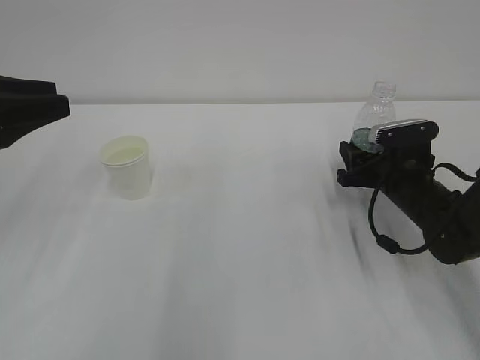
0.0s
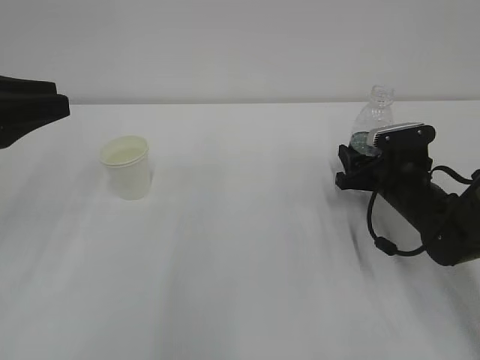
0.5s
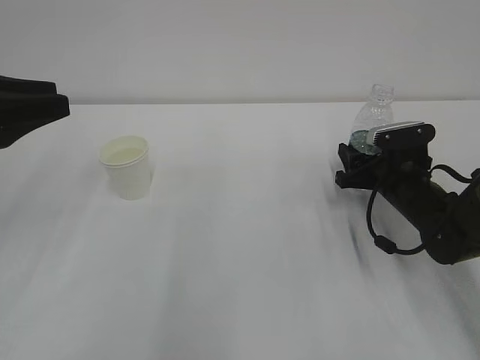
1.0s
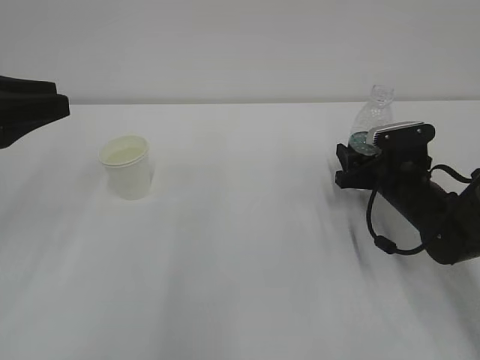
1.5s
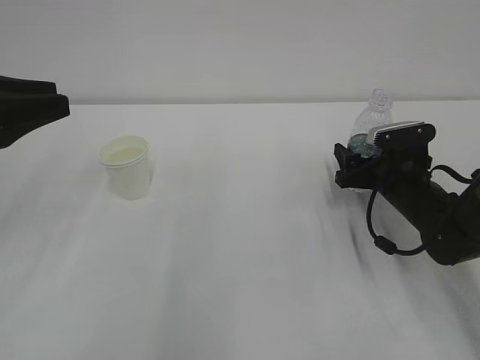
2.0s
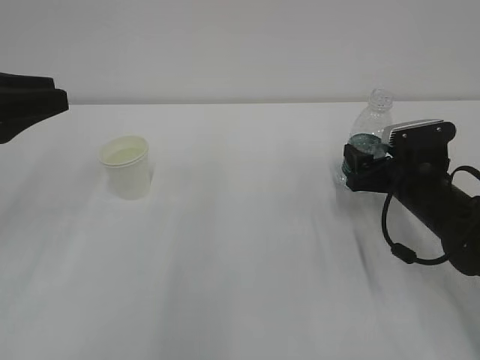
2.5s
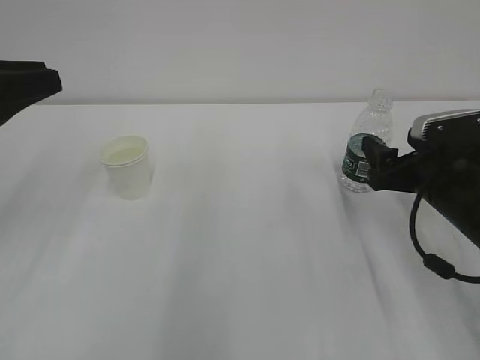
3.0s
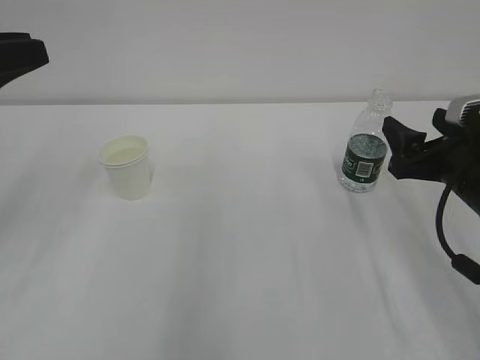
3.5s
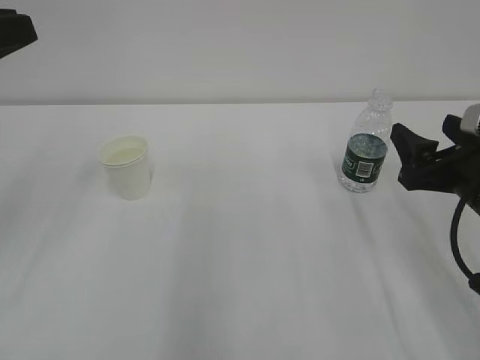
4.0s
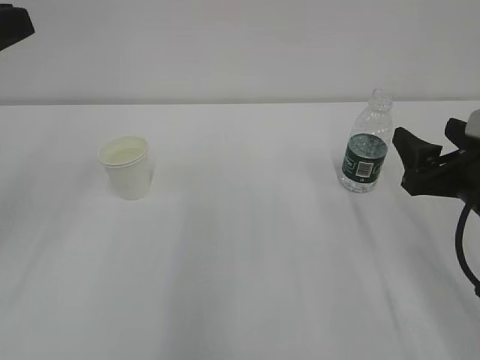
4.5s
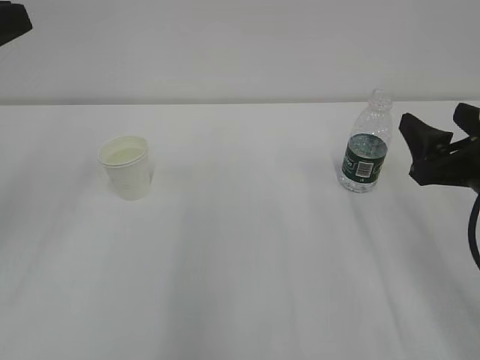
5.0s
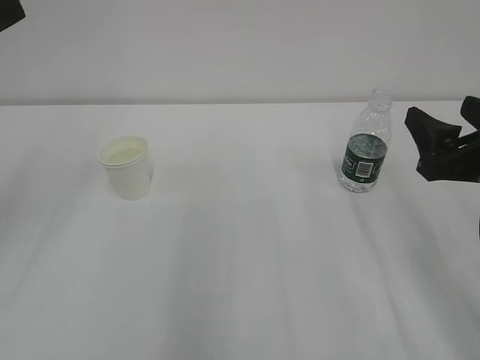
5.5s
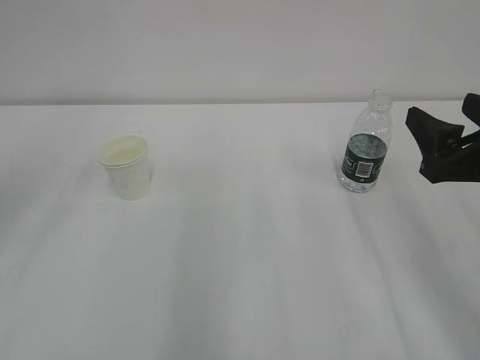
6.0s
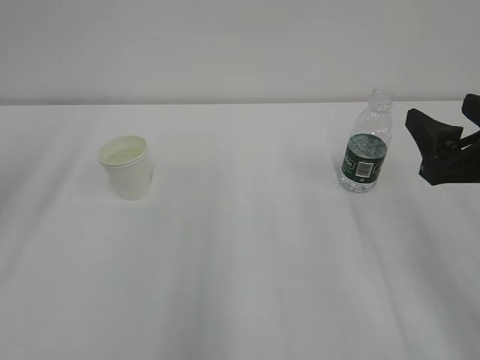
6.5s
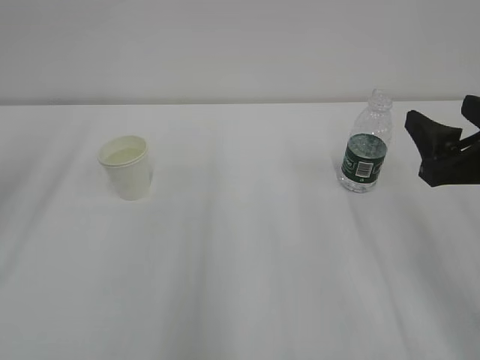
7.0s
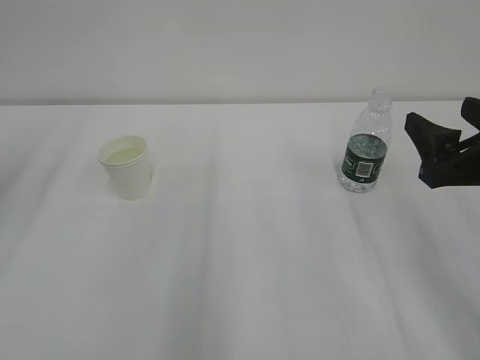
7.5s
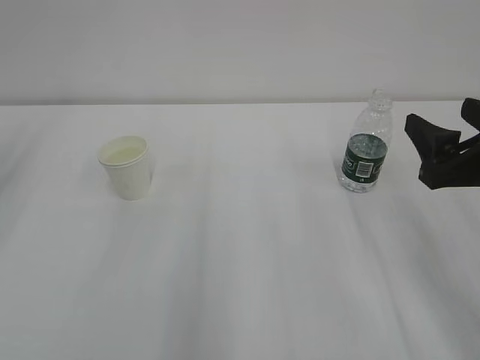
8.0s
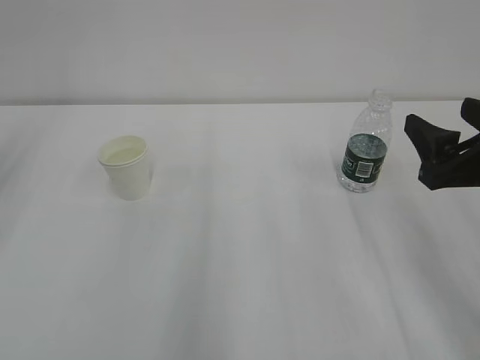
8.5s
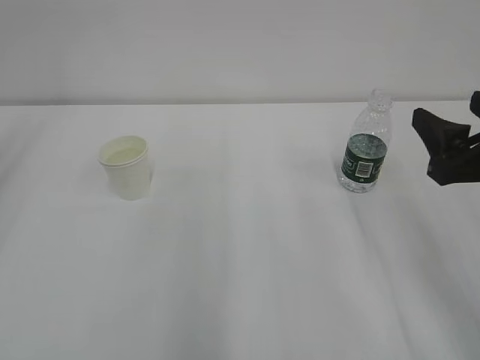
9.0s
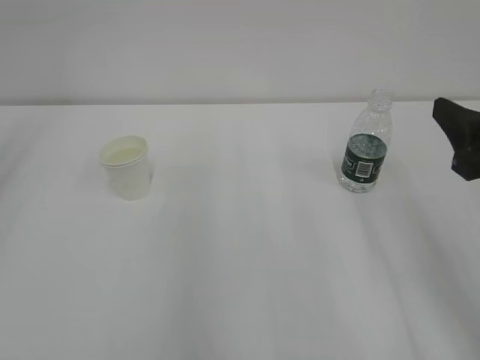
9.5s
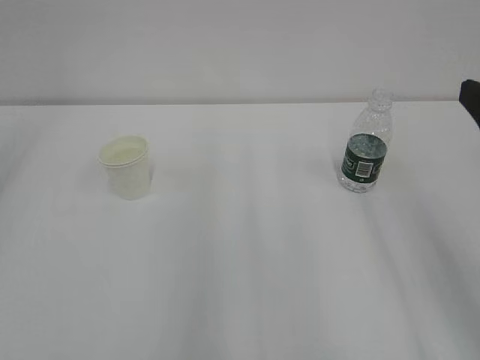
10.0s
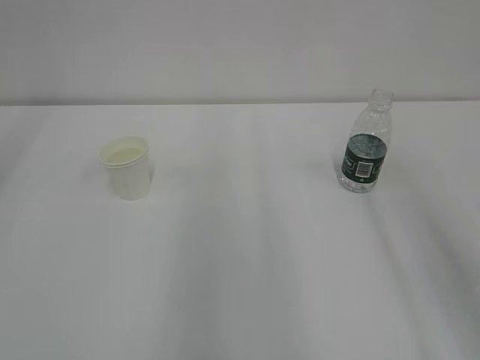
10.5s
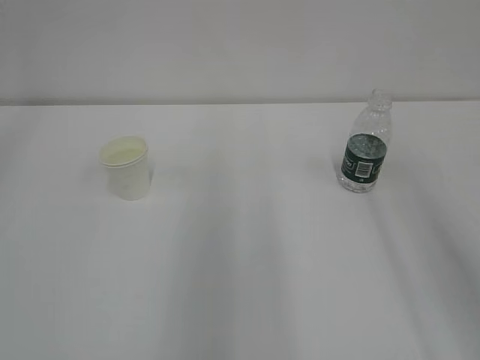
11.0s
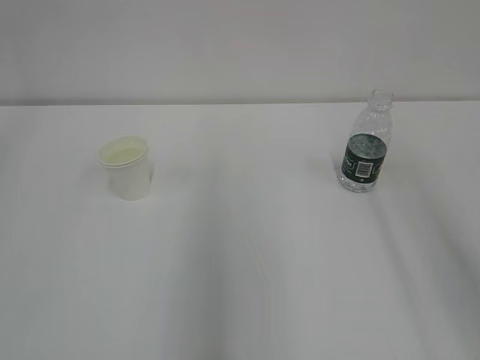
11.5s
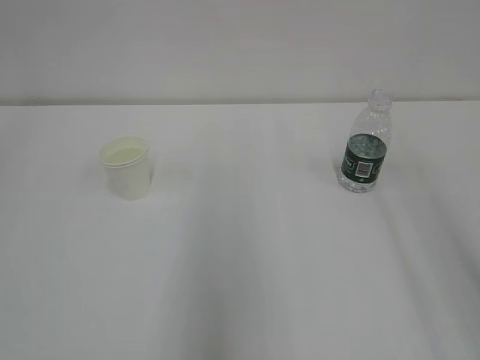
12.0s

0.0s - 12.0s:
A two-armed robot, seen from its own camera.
0.0s - 2.0s: The right gripper opens.
2.0s - 4.0s: The left gripper travels upward by approximately 5 cm. Meanwhile the right gripper moves backward and upward, roughly 15 cm.
4.0s - 6.0s: The left gripper opens.
8.0s - 10.0s: The right gripper heads upward, covering roughly 5 cm.
10.0s - 12.0s: The left gripper heads backward and upward, covering approximately 10 cm, while the right gripper shifts approximately 15 cm upward and backward.

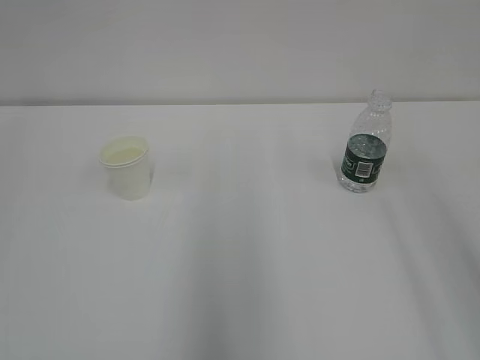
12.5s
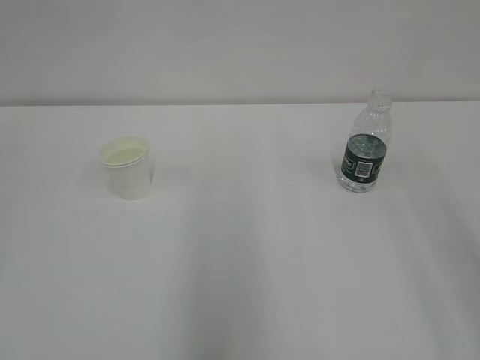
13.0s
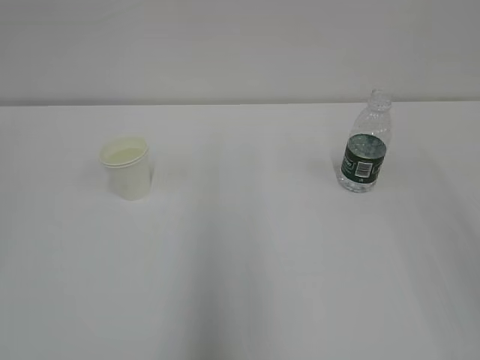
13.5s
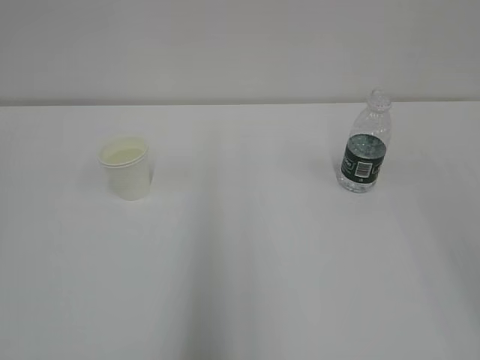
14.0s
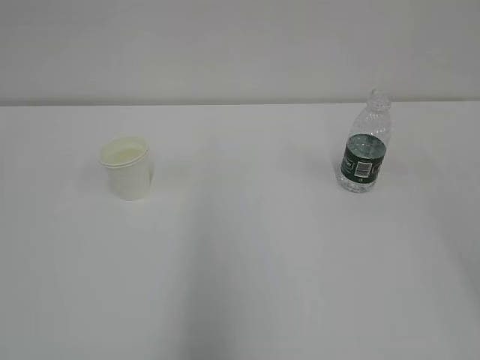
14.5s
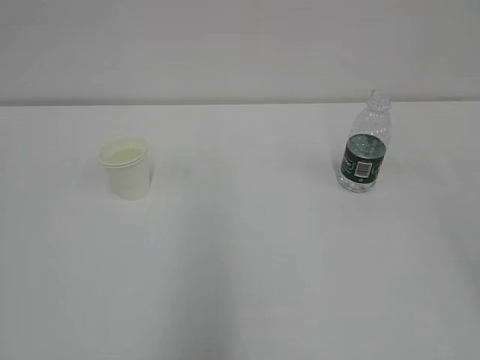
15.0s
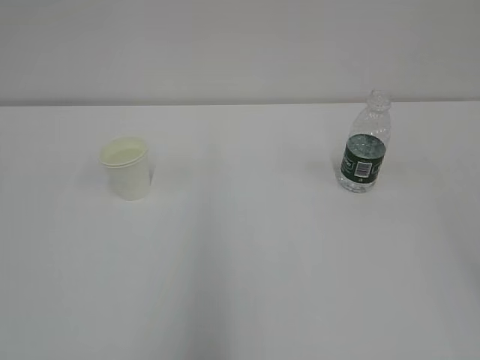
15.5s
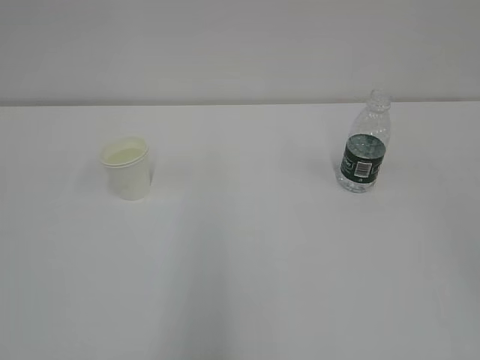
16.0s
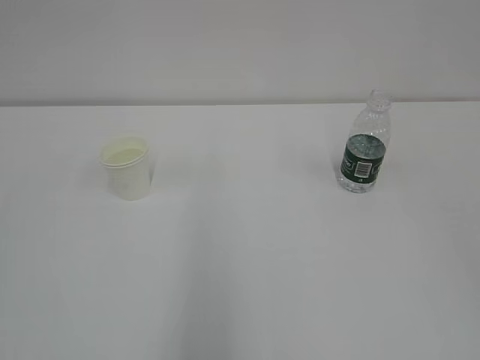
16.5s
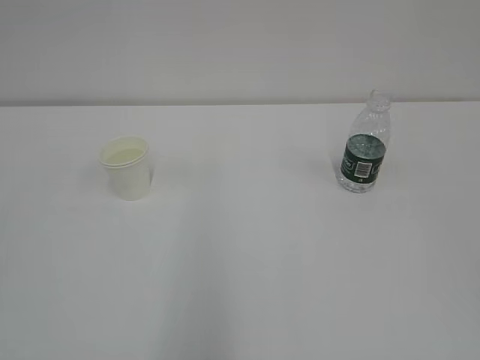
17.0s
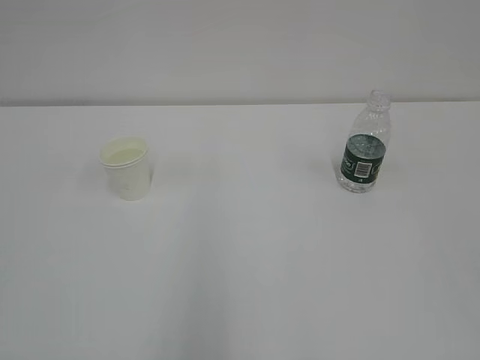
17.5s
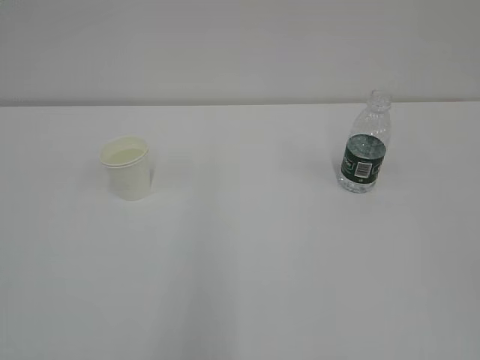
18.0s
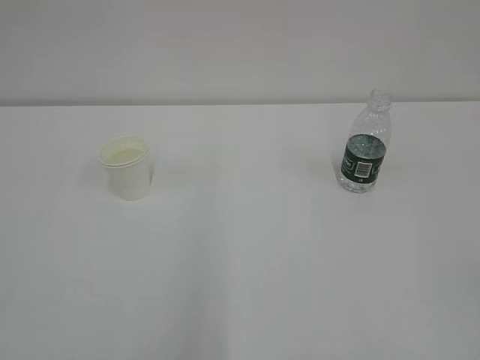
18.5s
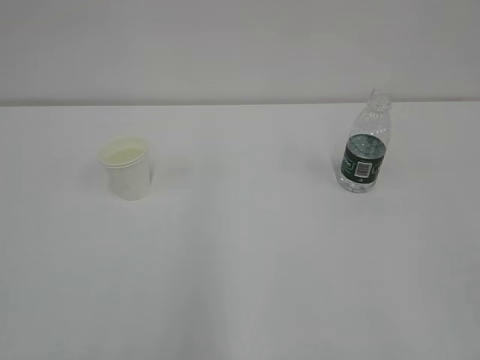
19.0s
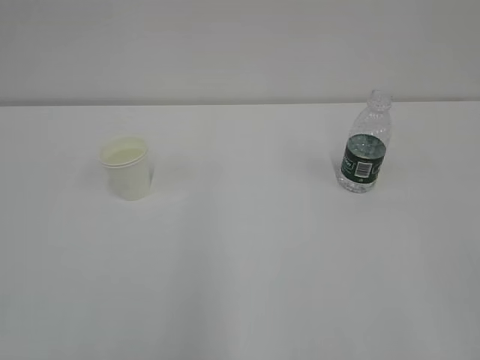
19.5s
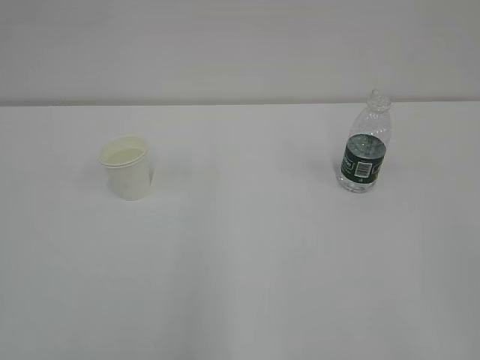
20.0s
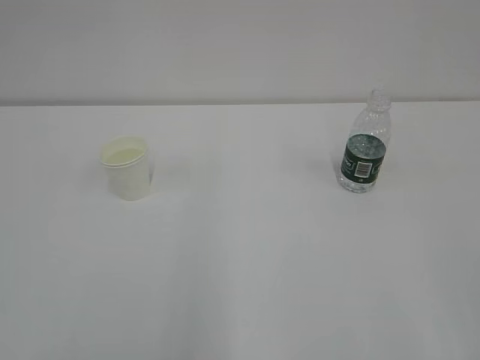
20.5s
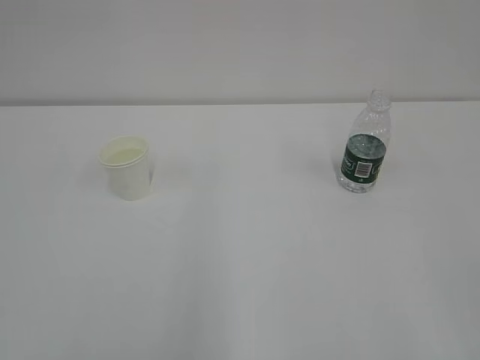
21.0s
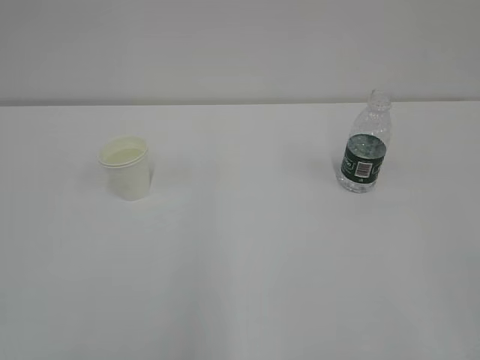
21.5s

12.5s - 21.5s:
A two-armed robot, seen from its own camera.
19.5s - 21.5s: Both grippers stay about where they are.
